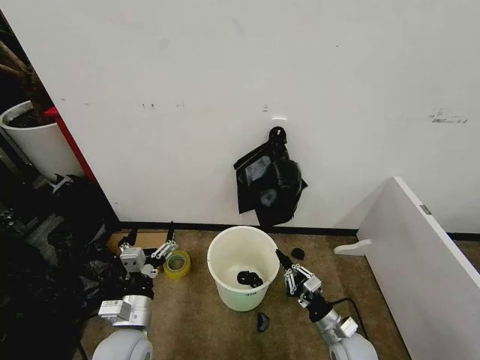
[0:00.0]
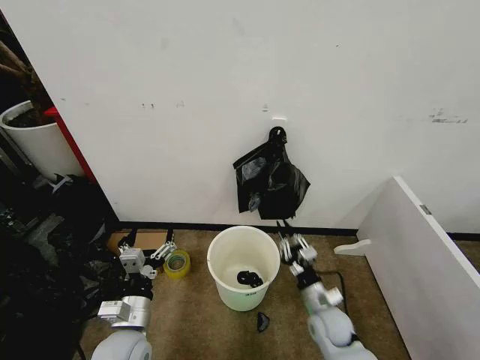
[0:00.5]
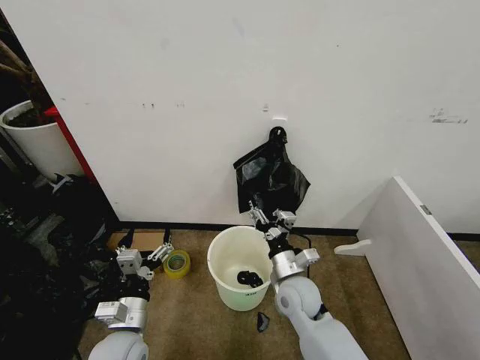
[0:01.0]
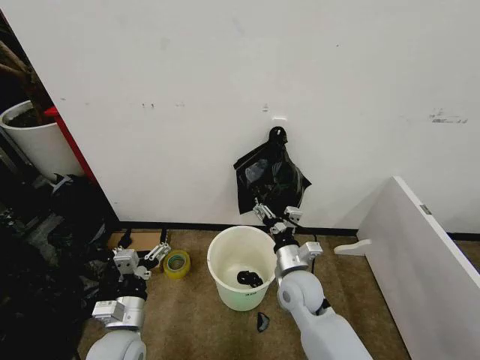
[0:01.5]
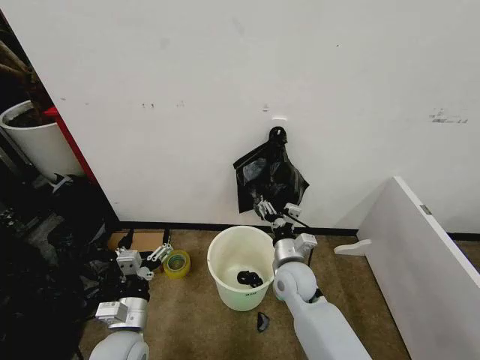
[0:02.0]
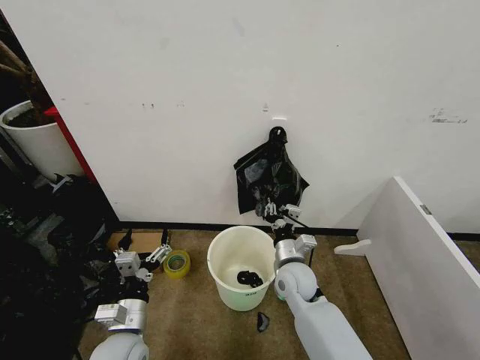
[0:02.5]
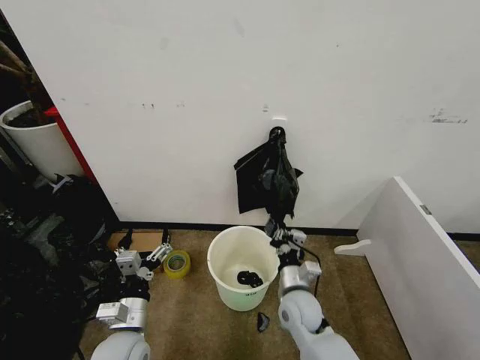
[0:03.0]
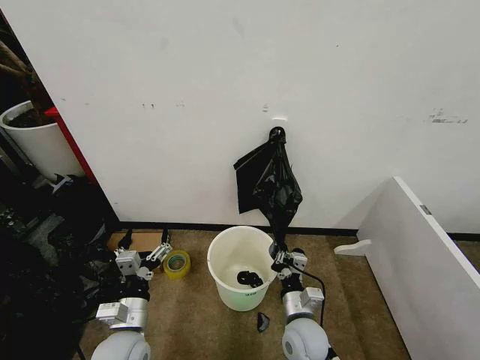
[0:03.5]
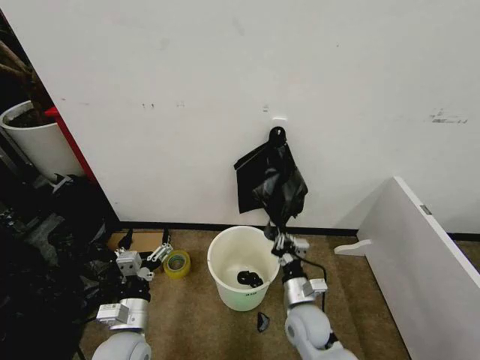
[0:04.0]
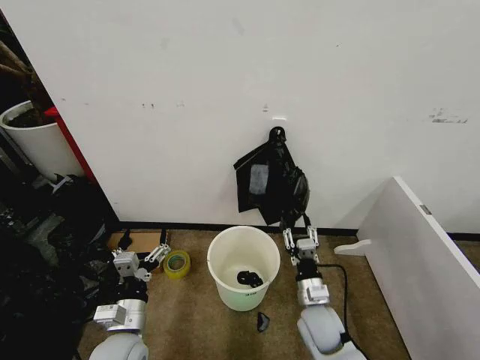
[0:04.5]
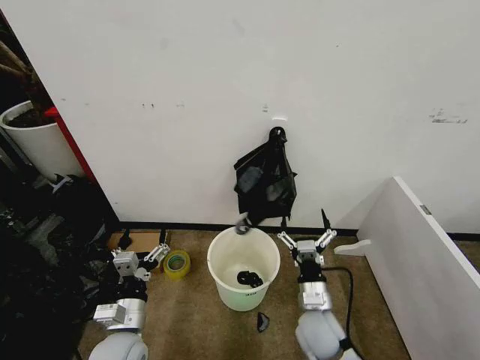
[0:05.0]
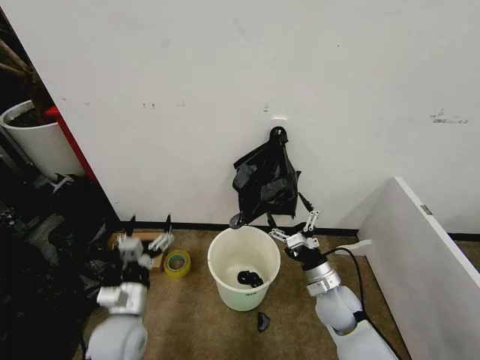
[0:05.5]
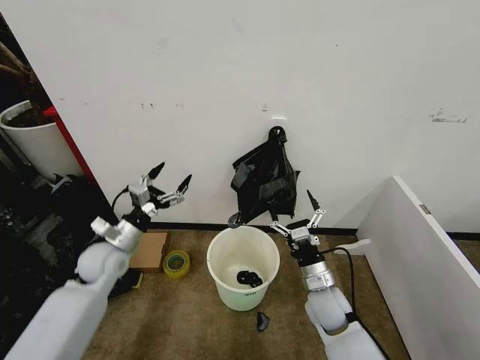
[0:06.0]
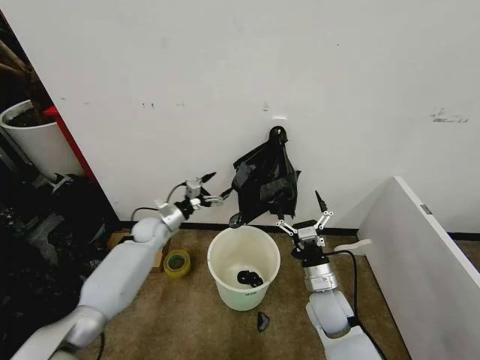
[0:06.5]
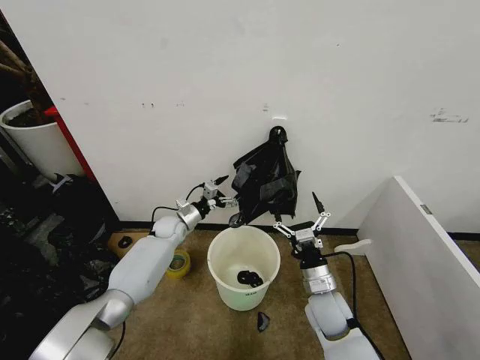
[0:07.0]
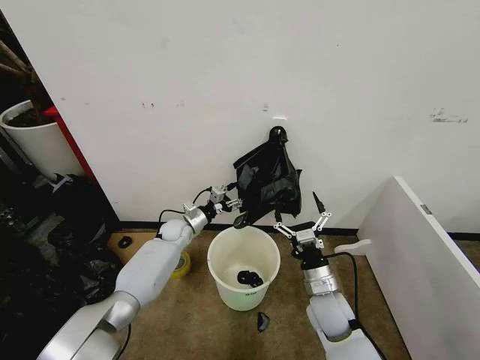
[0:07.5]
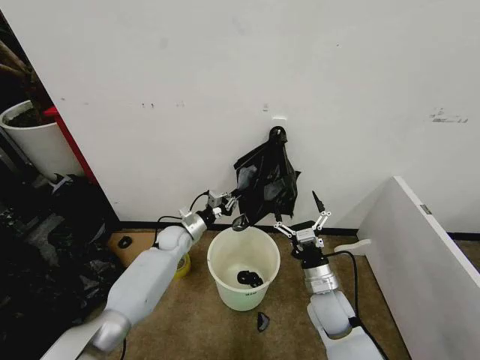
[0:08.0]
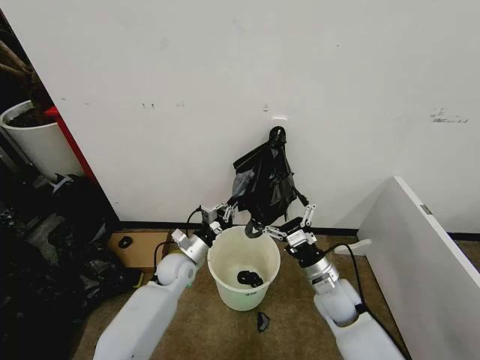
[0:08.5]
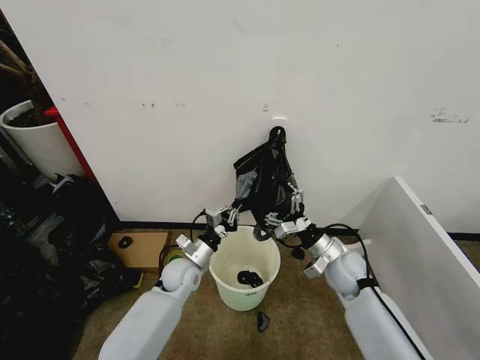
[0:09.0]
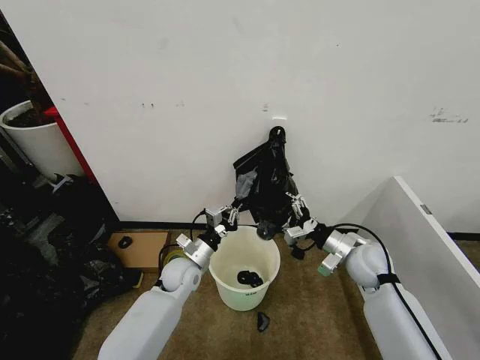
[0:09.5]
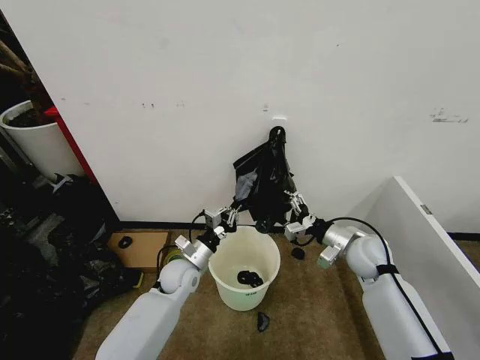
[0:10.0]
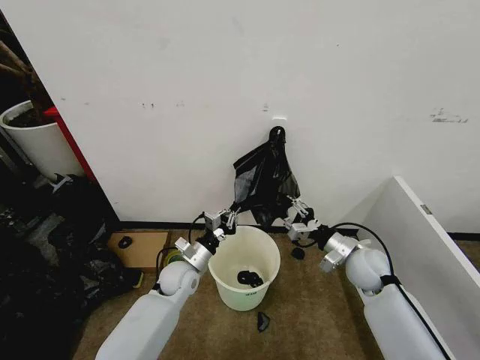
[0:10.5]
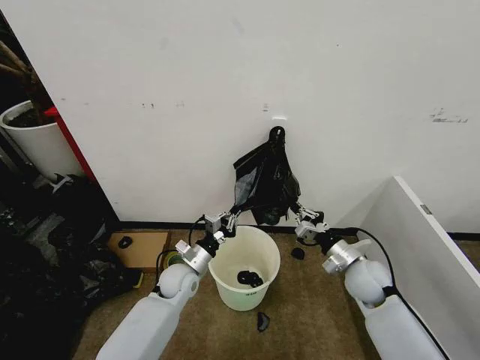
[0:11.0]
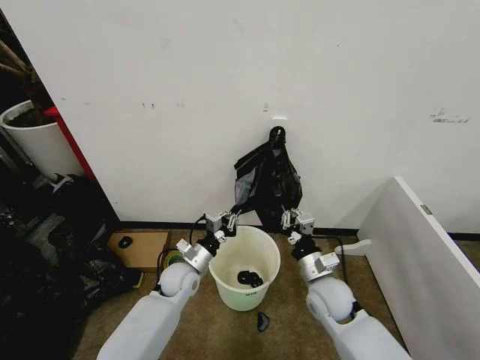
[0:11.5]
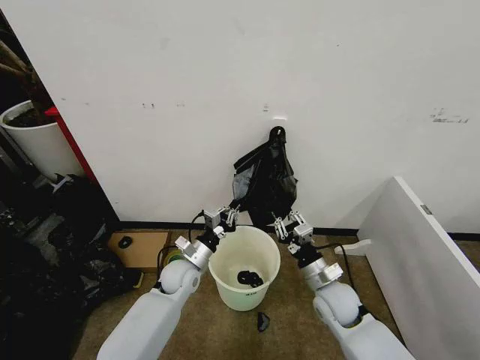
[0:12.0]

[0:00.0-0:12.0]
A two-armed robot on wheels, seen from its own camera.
Task of the whole recording: Place the garbage bag over the trash bin.
0:00.0 to 0:02.0: The right gripper moves to the left, forward and upward, about 20 cm, and opens its fingers.
0:02.0 to 0:04.0: The right gripper travels backward and downward by some 10 cm, and closes its fingers.
0:04.0 to 0:06.0: The left gripper moves forward and to the left, approximately 20 cm. The right gripper ends up roughly 5 cm from where it was, and opens up.
0:06.0 to 0:08.0: The left gripper heads forward, to the right and downward, covering roughly 20 cm, and closes its fingers.
0:08.0 to 0:10.0: The left gripper moves backward, about 15 cm, while the right gripper shifts approximately 15 cm to the right, forward and upward.
0:10.0 to 0:12.0: The right gripper goes approximately 15 cm backward, to the left and downward, and closes.

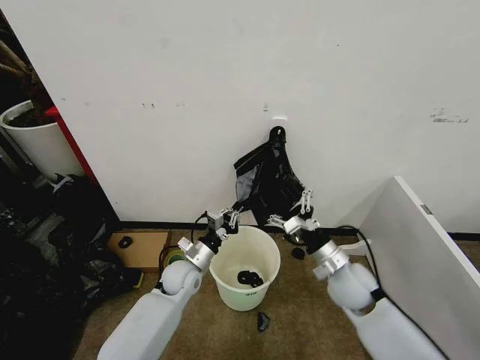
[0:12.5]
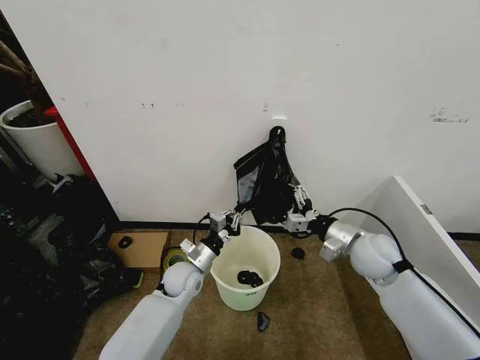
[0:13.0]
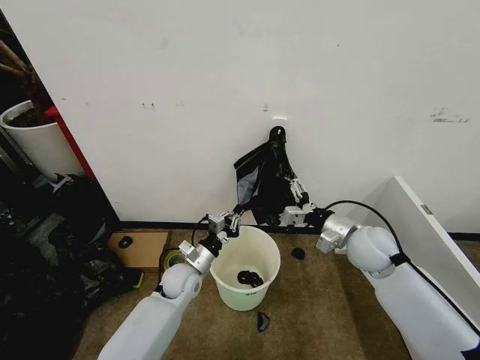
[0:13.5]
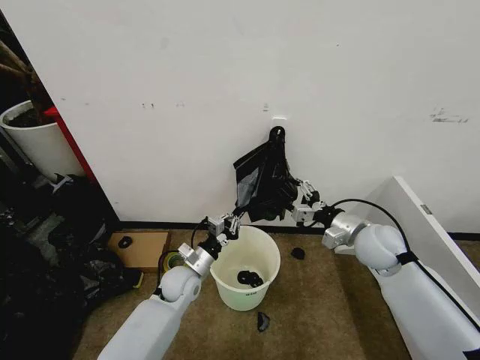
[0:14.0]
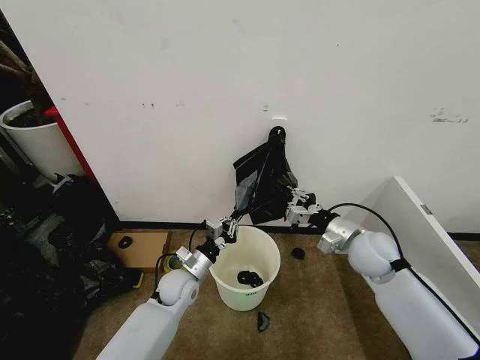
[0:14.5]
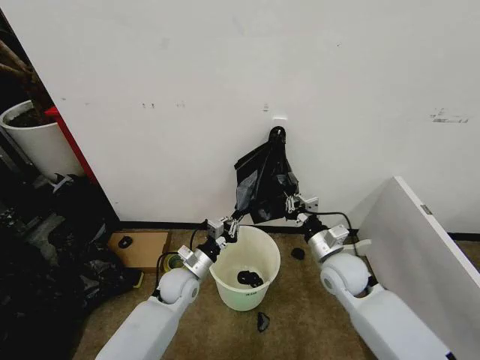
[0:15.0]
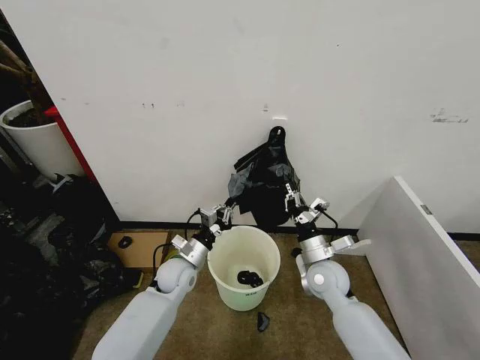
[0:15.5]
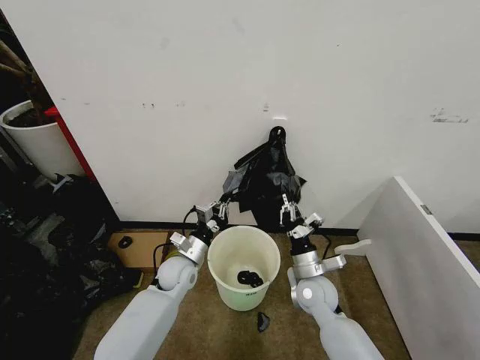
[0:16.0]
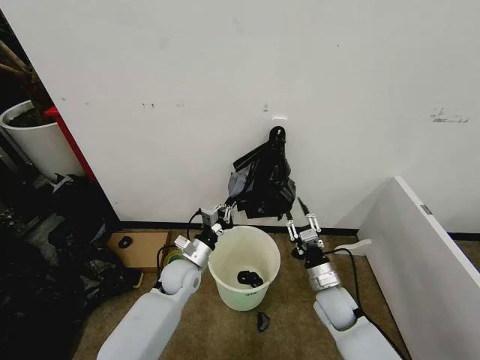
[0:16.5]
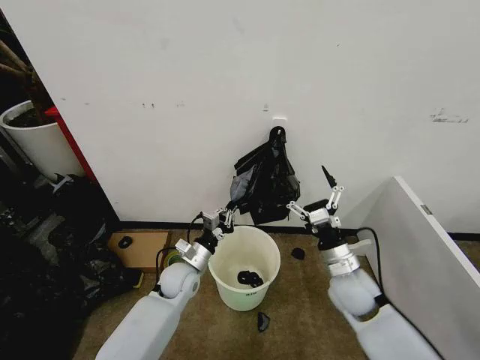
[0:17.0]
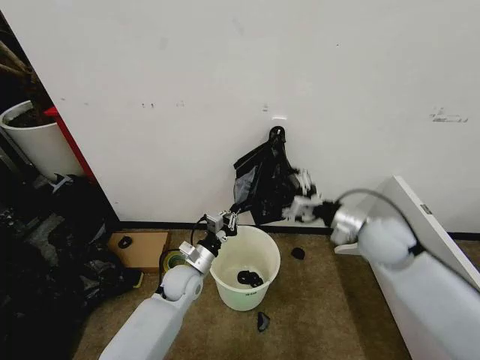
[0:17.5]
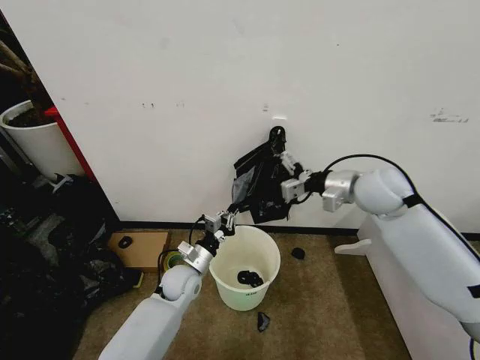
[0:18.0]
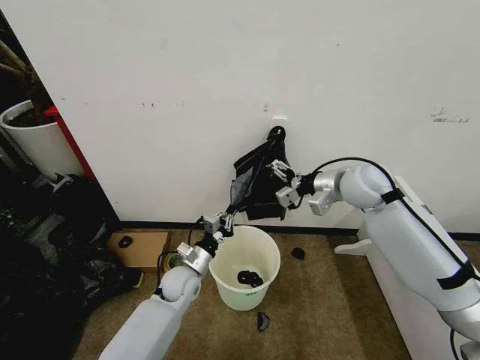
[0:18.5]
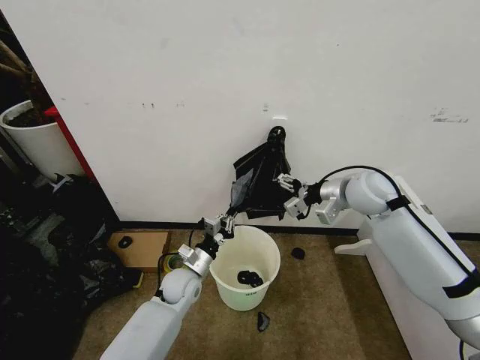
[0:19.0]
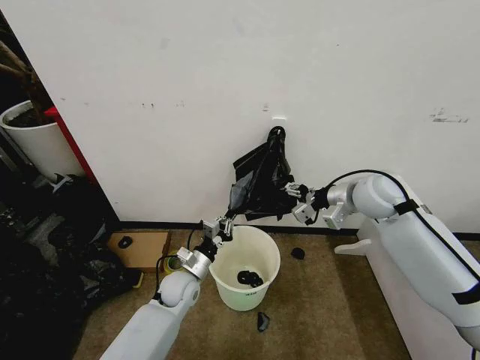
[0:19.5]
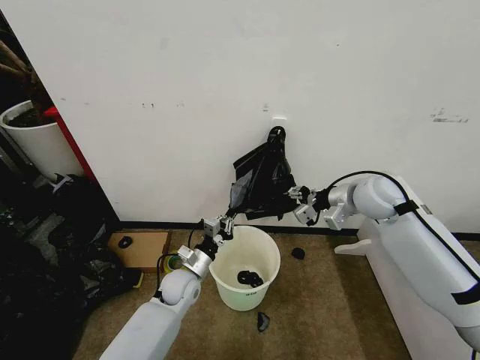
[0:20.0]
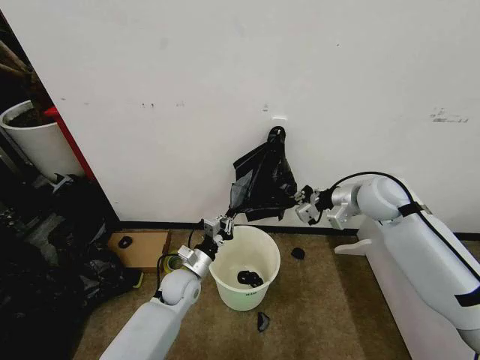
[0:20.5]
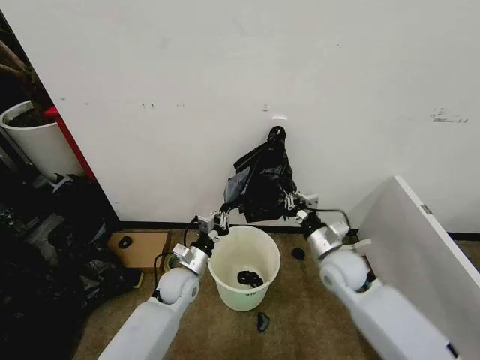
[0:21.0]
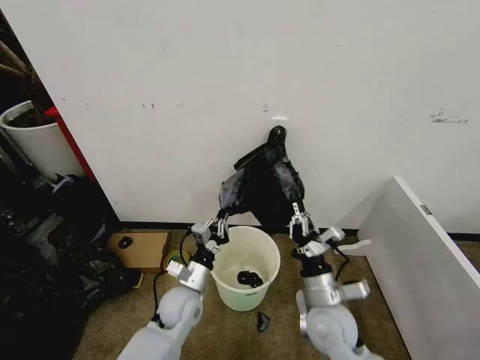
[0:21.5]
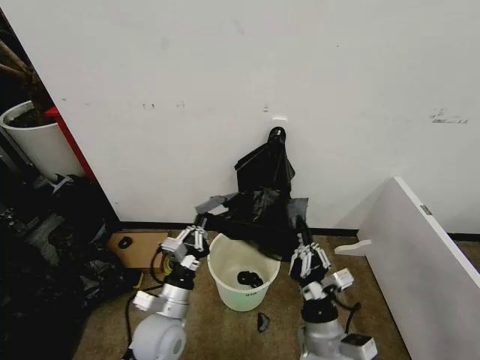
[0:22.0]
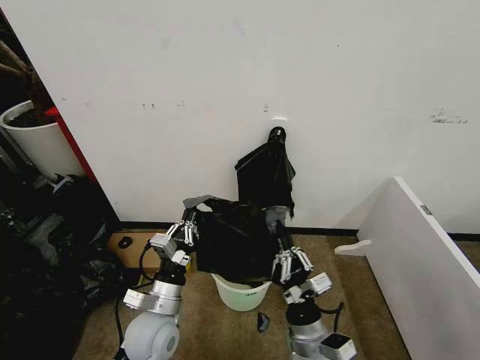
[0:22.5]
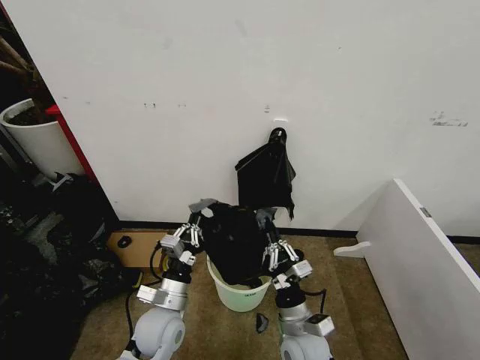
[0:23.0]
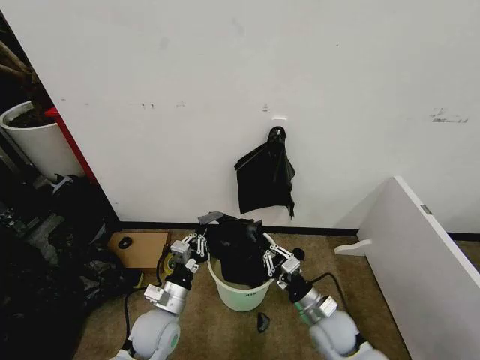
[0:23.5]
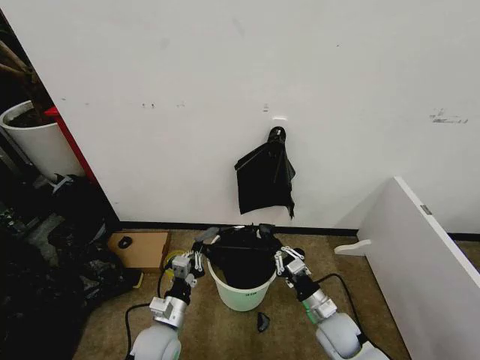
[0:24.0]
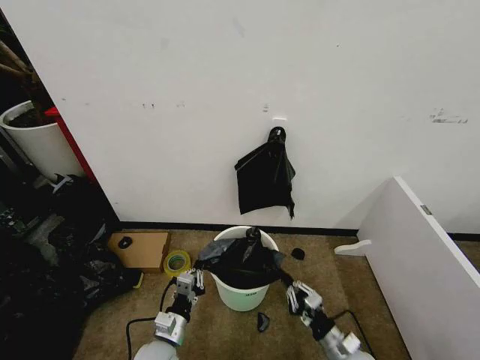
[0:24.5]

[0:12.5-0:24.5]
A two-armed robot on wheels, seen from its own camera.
Task of the whole recording: Place the garbage bag over the trash bin.
0:12.5 to 0:14.5: The right gripper moves upward, approximately 5 cm, and closes.
0:14.5 to 0:16.5: The right gripper is displaced downward by about 15 cm.
0:16.5 to 0:18.5: The right gripper moves upward and forward, about 30 cm, and opens up.
0:18.5 to 0:20.5: The right gripper moves approximately 5 cm, and closes up.
0:20.5 to 0:22.5: The left gripper goes roughly 15 cm backward and upward. Meanwhile the right gripper goes some 35 cm backward, downward and to the left.
0:22.5 to 0:24.5: The left gripper moves downward, about 15 cm. The right gripper shifts some 20 cm downward and to the right.

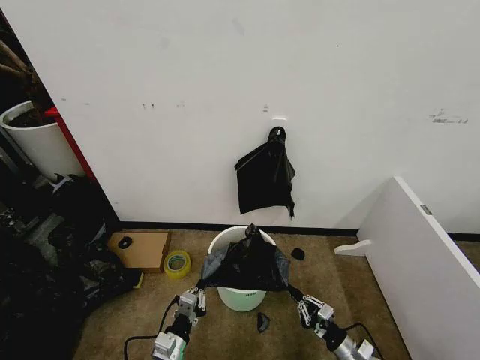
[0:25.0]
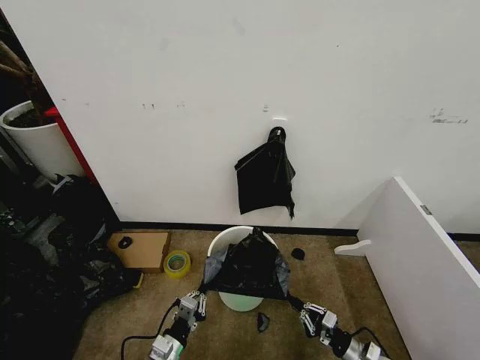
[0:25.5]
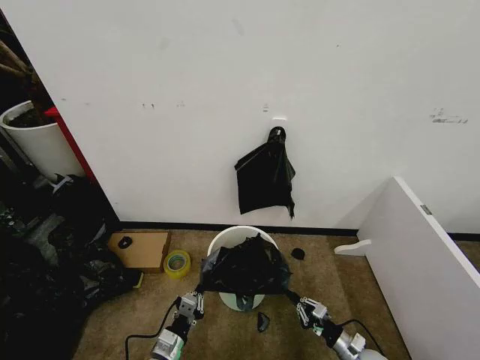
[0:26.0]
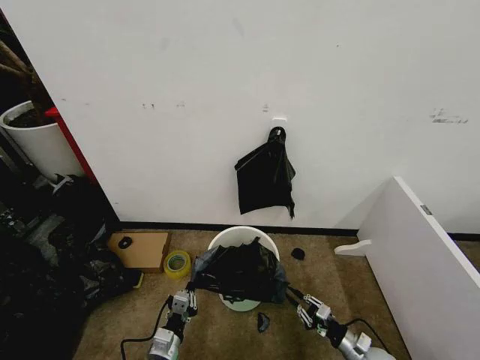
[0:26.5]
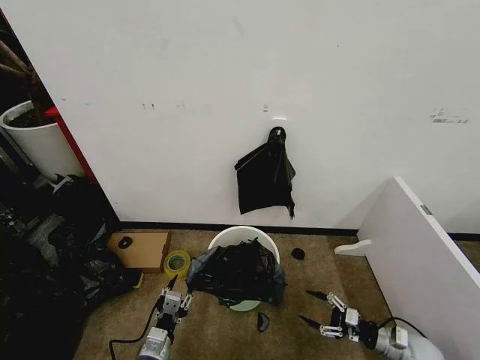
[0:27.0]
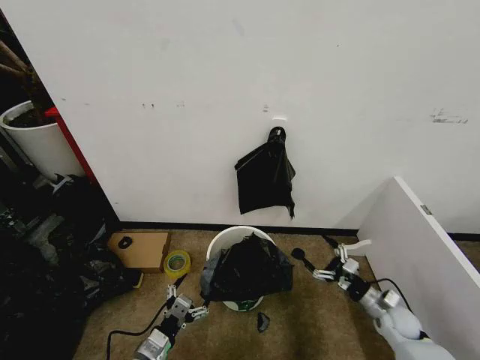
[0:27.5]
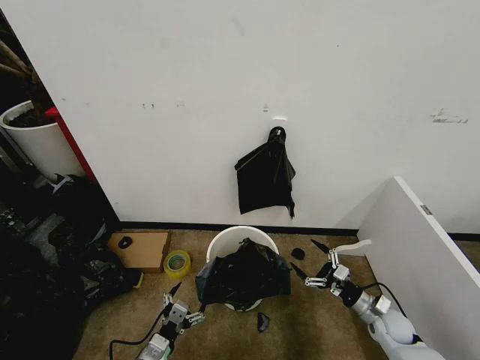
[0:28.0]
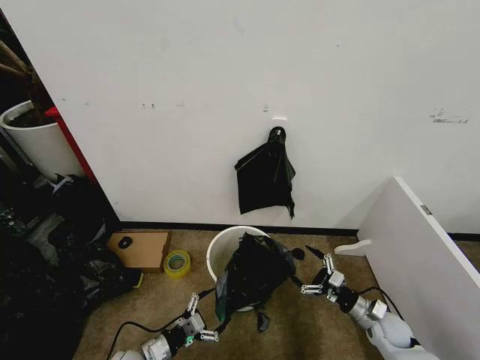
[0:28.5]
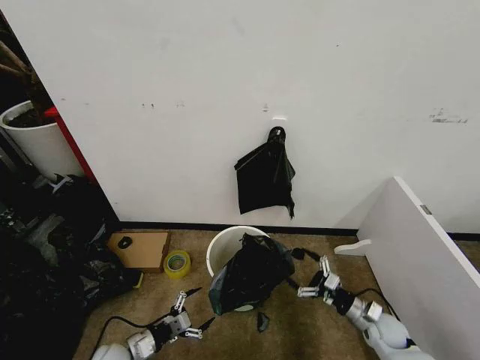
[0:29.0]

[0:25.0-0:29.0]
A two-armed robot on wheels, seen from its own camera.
Task of the whole recording: Place the garbage bag over the trash bin.
0:25.0 to 0:27.0: The right gripper travels to the right by roughly 10 cm, and opens. Meanwhile the left gripper opens up.
0:27.0 to 0:29.0: The two grippers go about 10 cm to the left. The left gripper opens up.
